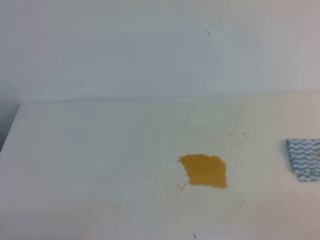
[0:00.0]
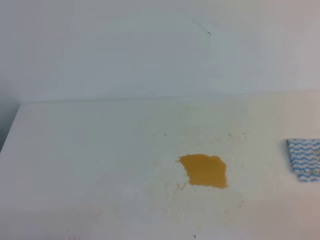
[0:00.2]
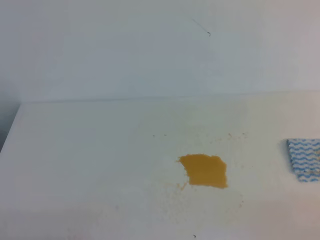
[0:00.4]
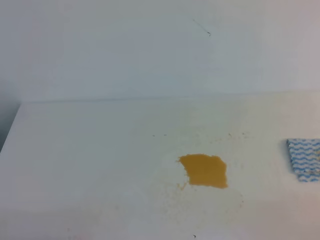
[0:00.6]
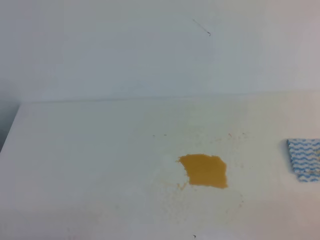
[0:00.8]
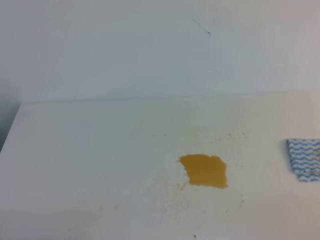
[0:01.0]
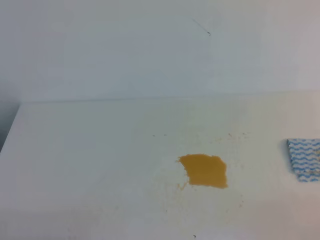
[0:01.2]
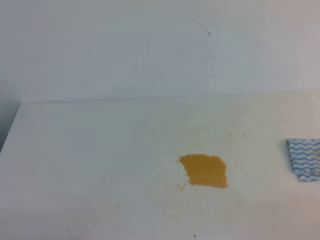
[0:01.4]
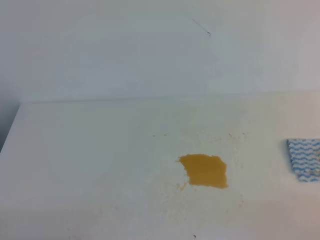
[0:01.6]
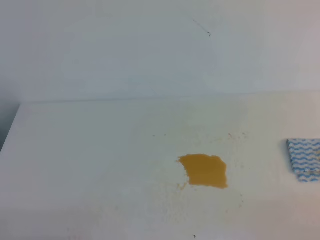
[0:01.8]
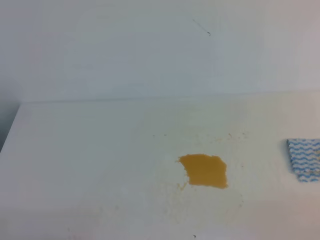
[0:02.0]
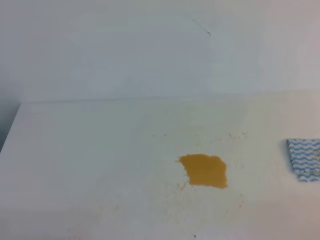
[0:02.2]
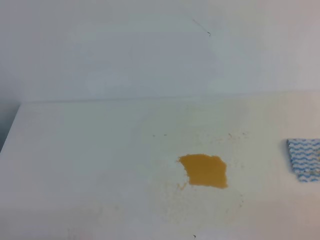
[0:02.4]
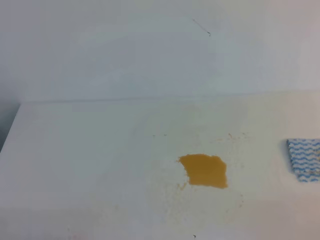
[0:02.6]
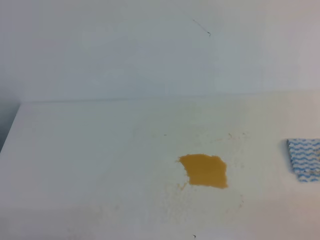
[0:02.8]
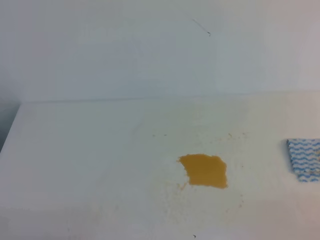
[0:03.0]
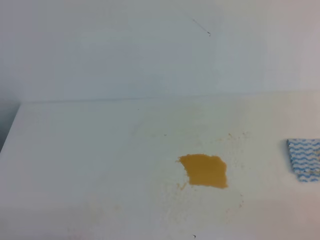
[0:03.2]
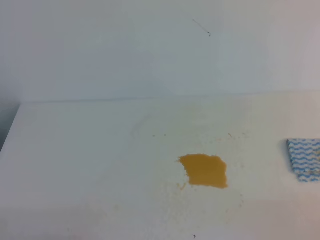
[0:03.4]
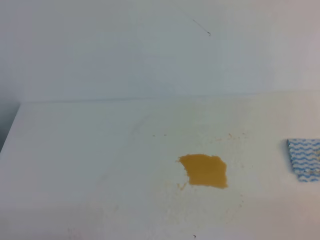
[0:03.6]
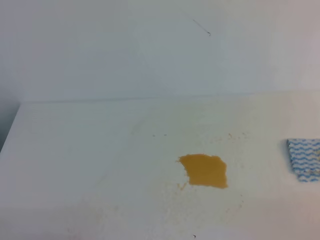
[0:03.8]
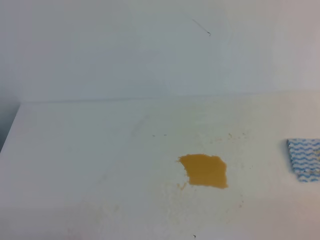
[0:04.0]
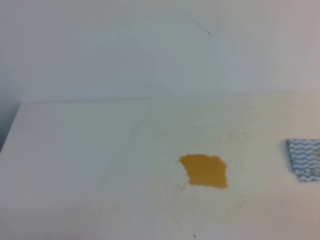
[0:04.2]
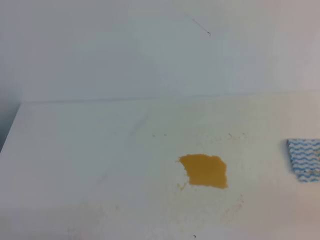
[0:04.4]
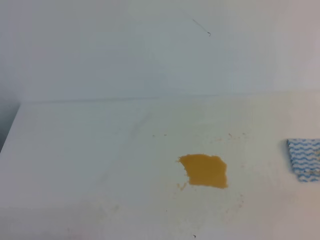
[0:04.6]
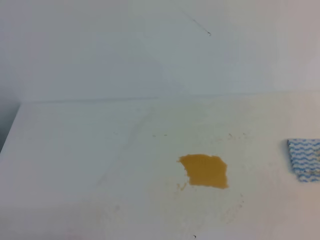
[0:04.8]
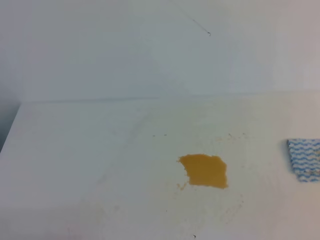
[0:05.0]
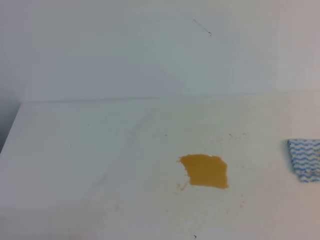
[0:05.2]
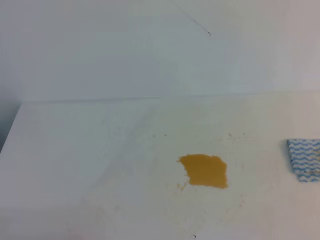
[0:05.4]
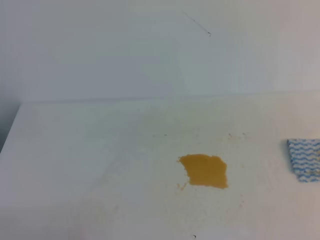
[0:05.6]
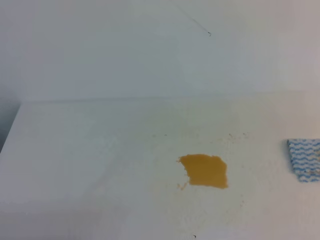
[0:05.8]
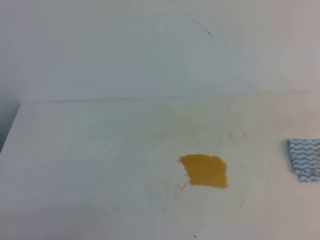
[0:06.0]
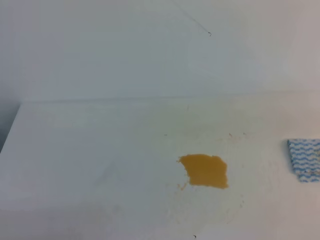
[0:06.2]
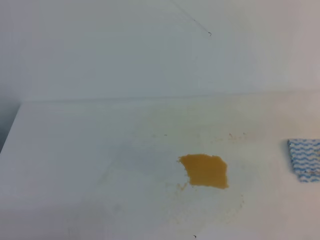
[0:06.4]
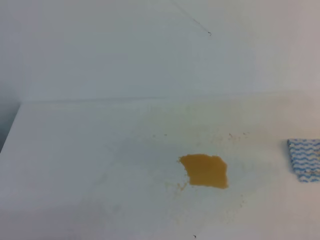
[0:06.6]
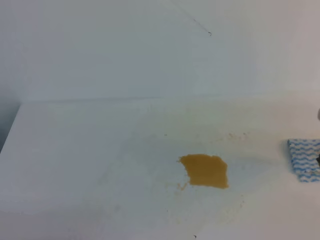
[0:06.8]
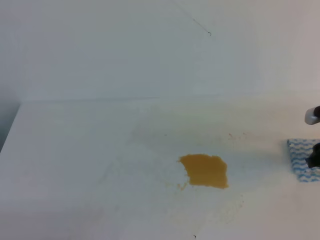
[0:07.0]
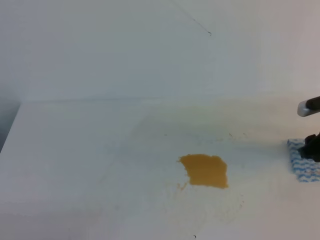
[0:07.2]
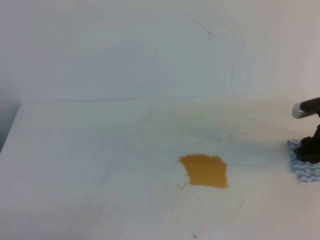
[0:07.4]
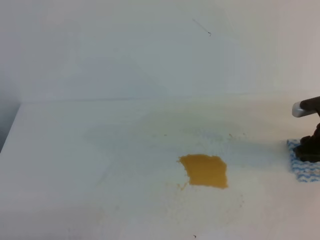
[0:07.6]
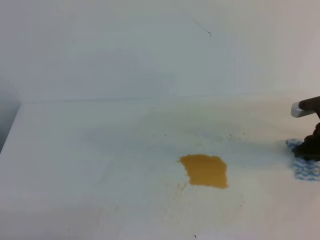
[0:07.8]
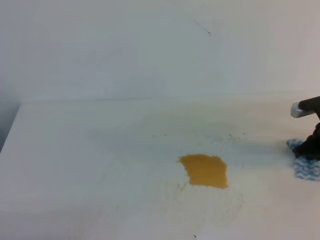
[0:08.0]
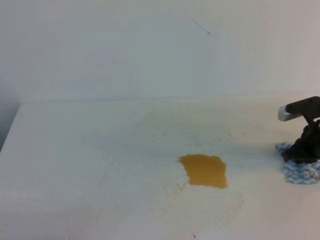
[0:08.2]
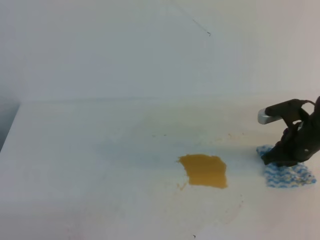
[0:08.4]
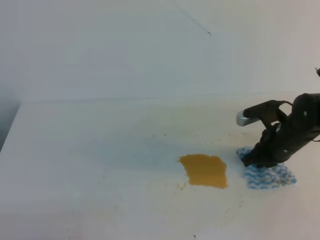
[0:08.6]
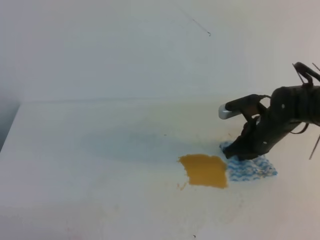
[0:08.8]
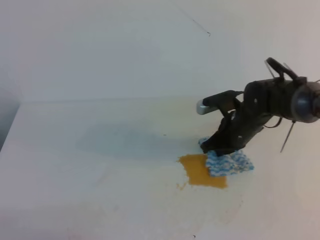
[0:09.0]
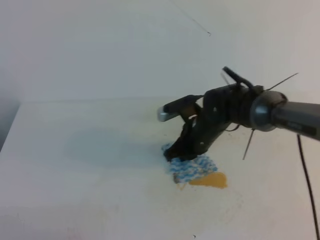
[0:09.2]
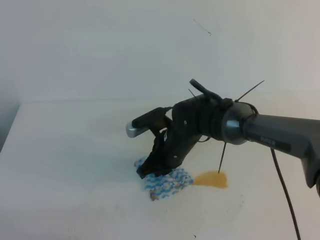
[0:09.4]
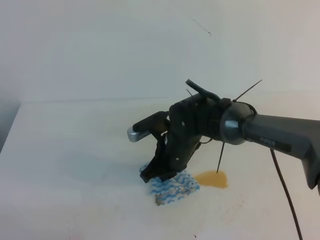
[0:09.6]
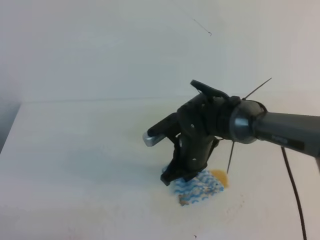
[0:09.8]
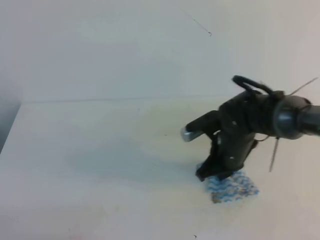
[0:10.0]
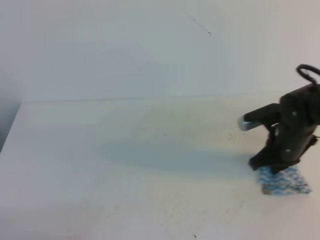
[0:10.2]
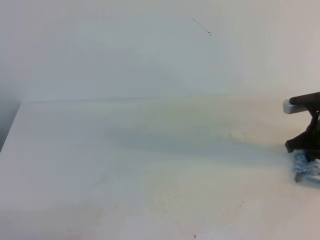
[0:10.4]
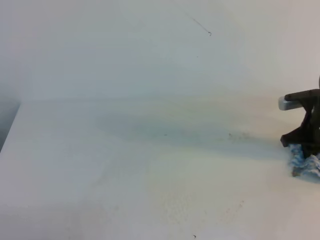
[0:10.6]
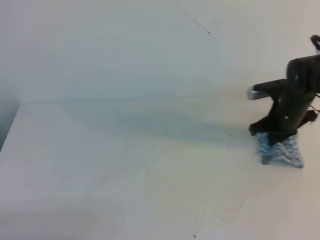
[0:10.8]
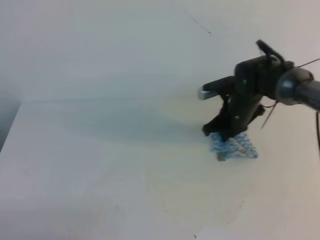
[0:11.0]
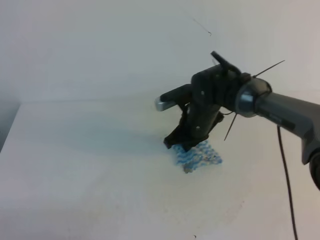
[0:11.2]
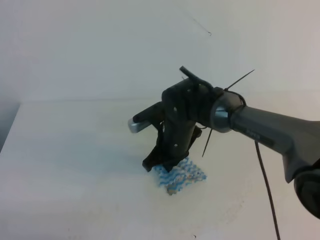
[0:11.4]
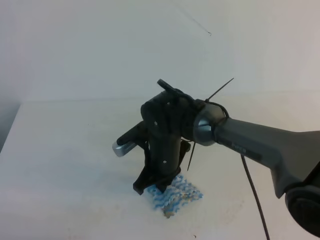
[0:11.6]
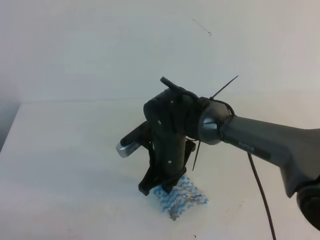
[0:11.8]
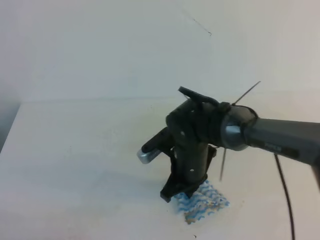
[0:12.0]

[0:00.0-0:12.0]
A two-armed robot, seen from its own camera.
0:00.0 to 0:03.0: The two grippers keep their place.
0:06.0 to 0:07.6: The right gripper shifts some 30 cm downward and forward, and opens up.
0:07.6 to 0:09.0: The right gripper goes approximately 20 cm to the left, and closes its fingers.
0:09.0 to 0:10.4: The right gripper shifts some 10 cm to the right.
0:10.4 to 0:12.0: The right gripper is displaced to the left by some 25 cm.

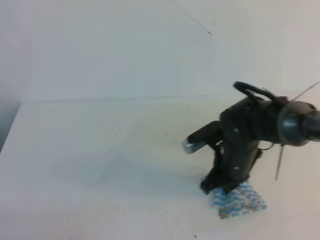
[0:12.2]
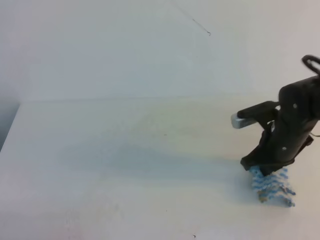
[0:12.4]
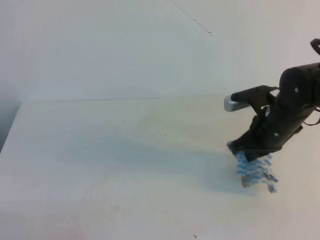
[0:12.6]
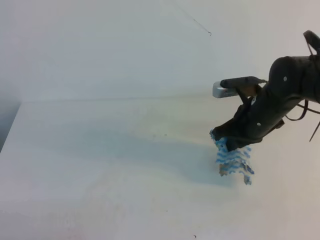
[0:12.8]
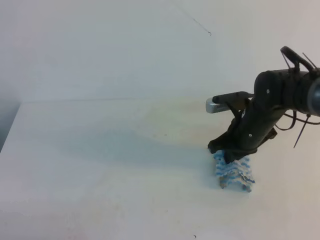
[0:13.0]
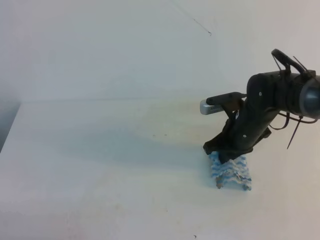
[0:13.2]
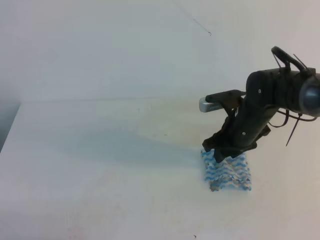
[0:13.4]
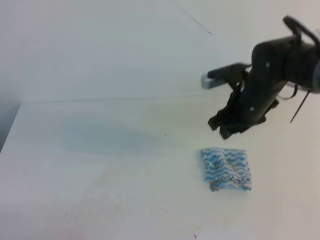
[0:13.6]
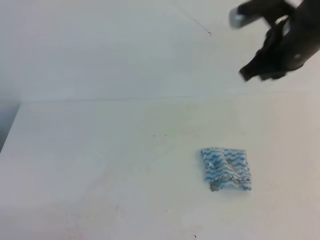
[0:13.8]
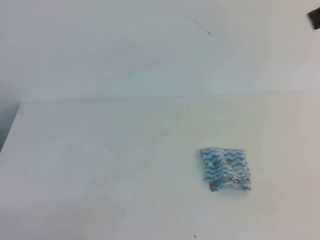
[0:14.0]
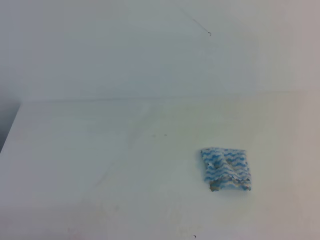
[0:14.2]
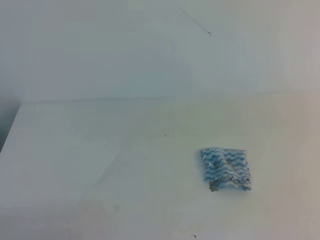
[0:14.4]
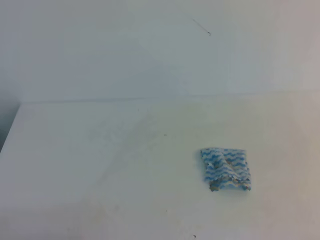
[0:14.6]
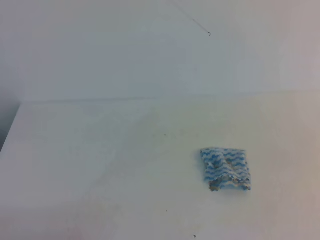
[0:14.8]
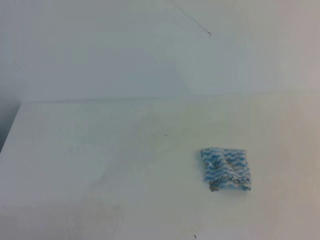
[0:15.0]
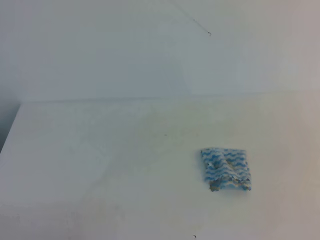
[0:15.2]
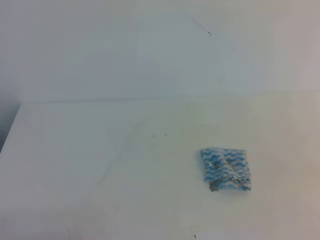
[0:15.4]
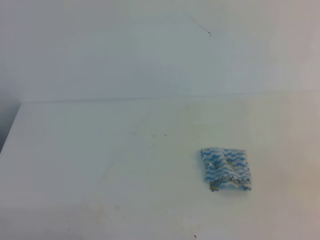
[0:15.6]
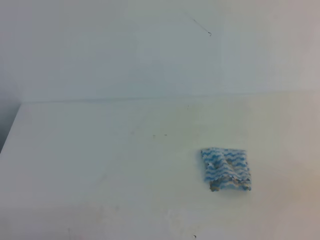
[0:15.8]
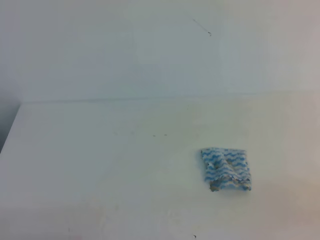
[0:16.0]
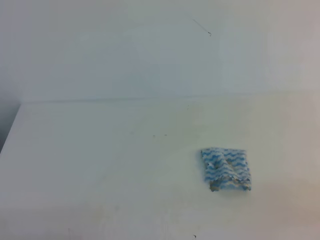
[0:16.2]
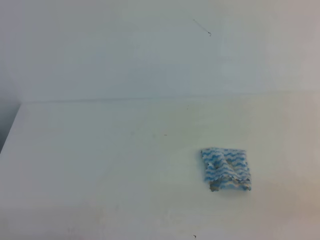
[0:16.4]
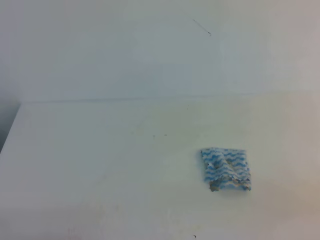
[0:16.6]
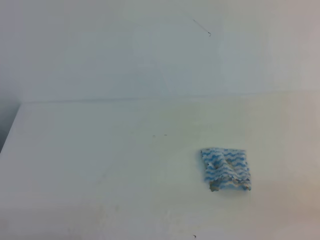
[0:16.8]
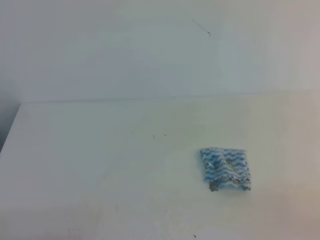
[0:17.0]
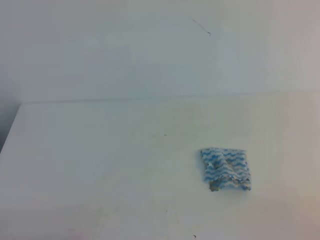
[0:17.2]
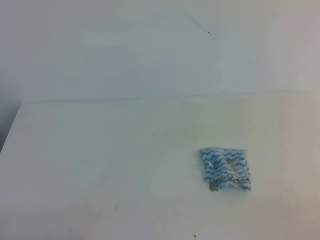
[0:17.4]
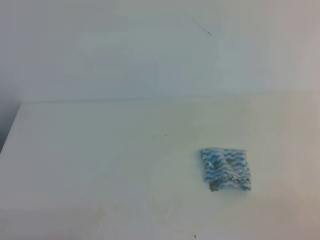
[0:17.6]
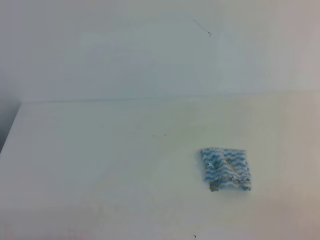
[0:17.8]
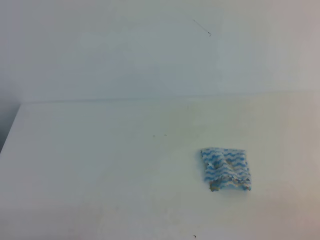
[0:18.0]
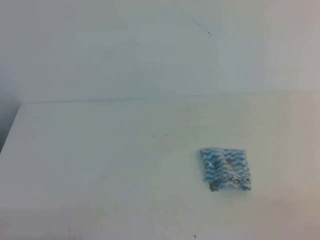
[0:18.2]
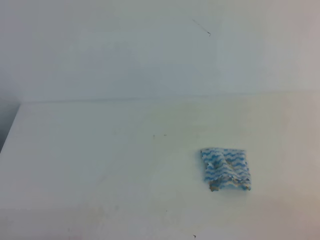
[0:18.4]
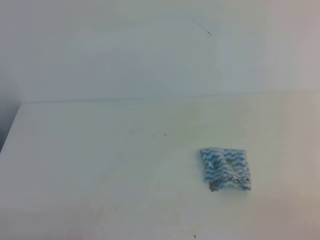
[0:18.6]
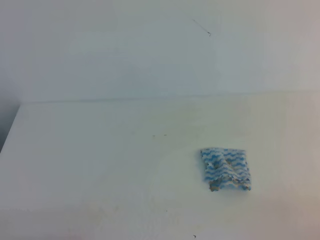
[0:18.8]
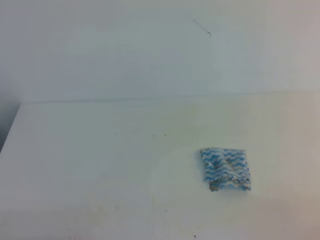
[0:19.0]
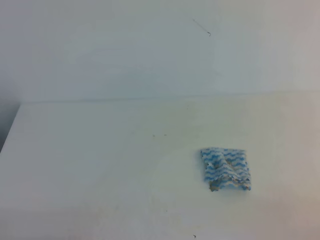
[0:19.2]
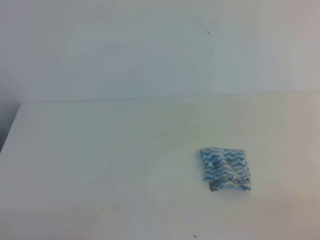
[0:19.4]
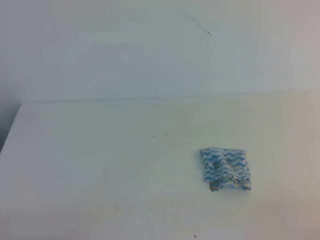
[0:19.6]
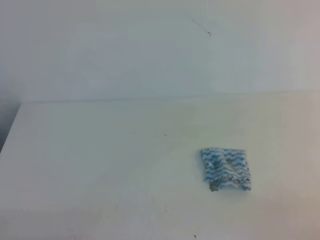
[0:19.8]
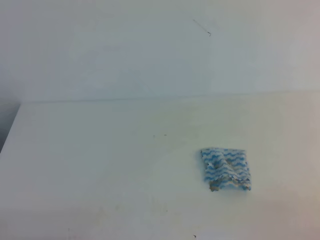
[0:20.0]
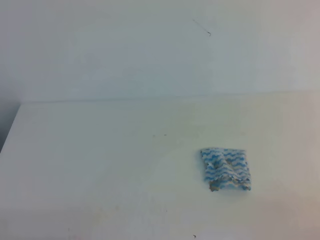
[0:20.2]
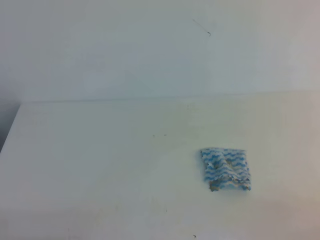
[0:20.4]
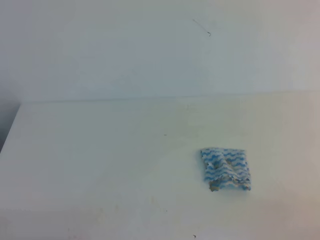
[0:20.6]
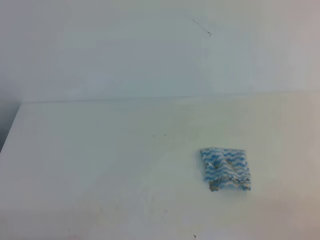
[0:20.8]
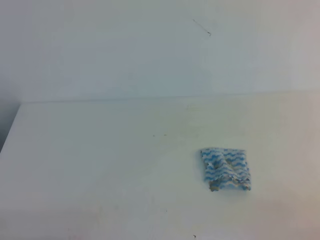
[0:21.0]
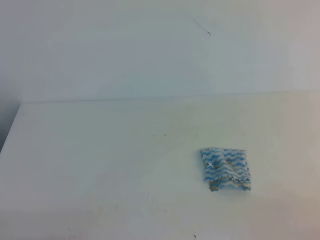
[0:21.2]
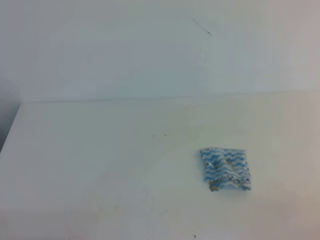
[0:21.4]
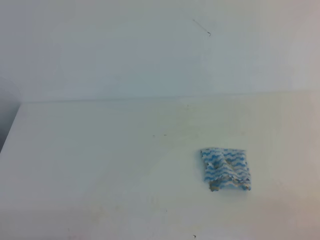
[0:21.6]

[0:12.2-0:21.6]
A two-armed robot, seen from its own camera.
0:12.2 to 0:13.8: The right gripper moves upward, roughly 20 cm, and opens.
0:13.8 to 0:15.4: The right gripper shifts approximately 30 cm backward and to the right, and closes.
0:18.4 to 0:21.6: The two grippers keep their place.

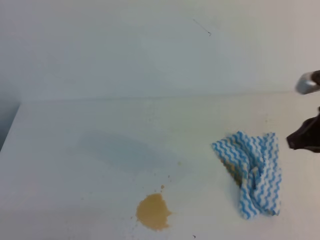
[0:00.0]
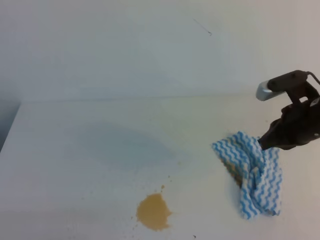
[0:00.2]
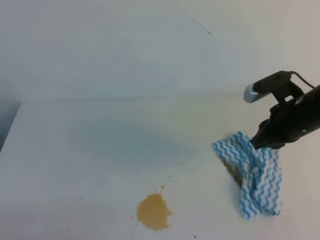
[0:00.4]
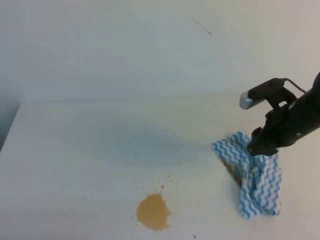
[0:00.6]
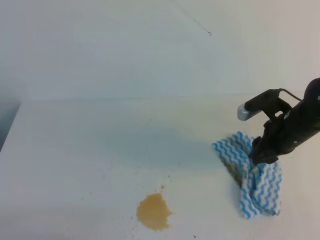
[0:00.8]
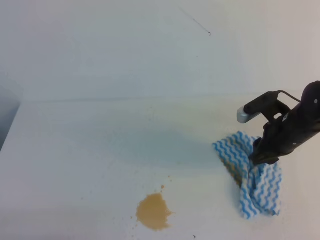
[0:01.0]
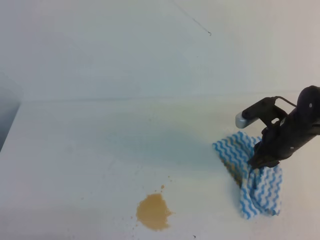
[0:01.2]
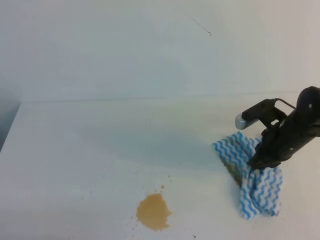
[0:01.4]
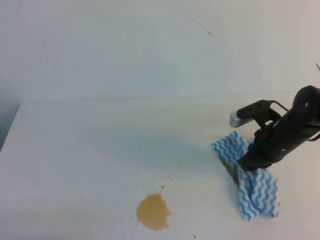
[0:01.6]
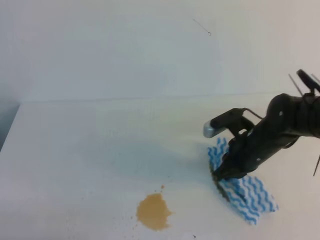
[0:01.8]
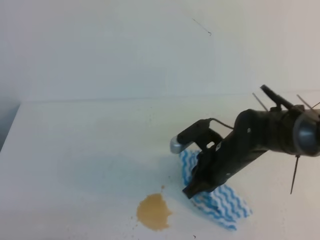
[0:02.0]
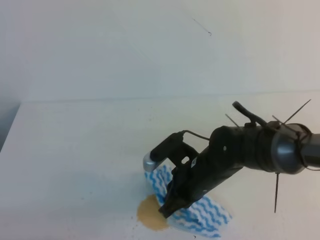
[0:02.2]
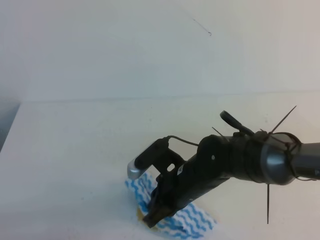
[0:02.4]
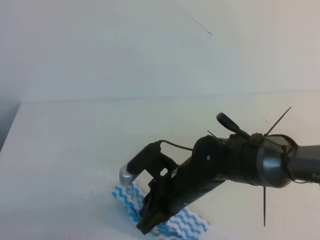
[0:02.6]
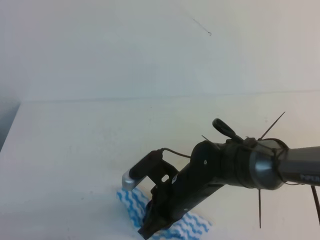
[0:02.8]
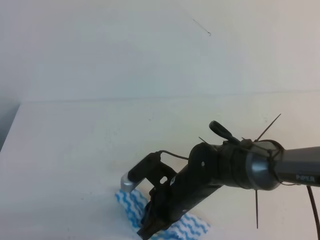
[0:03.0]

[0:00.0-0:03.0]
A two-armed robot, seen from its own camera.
0:00.0 to 0:01.6: The right gripper goes roughly 15 cm downward, forward and to the left, and opens, then closes once more.
0:01.6 to 0:03.0: The right gripper shifts roughly 20 cm to the left and backward.
